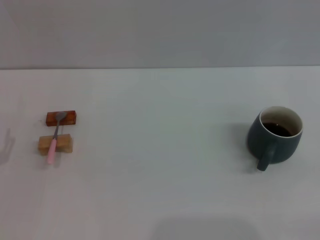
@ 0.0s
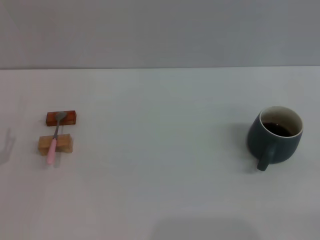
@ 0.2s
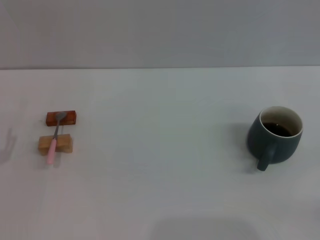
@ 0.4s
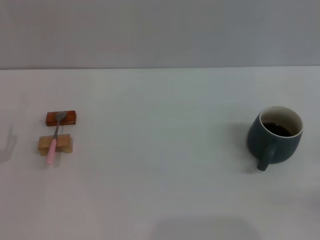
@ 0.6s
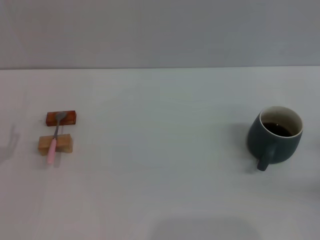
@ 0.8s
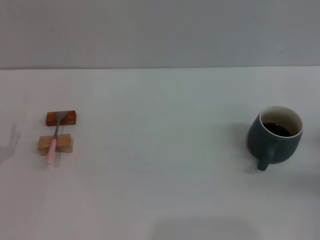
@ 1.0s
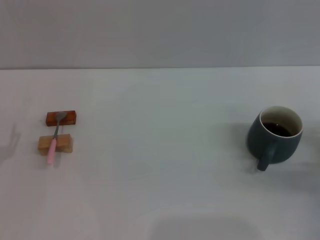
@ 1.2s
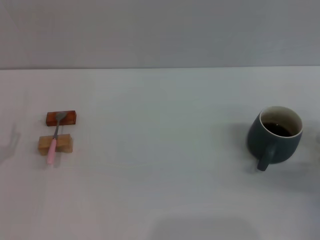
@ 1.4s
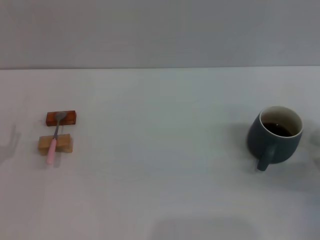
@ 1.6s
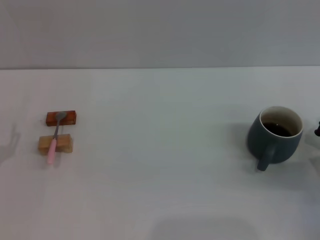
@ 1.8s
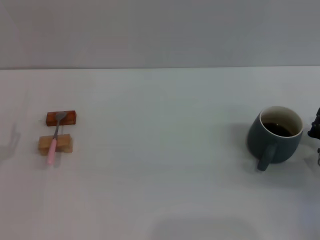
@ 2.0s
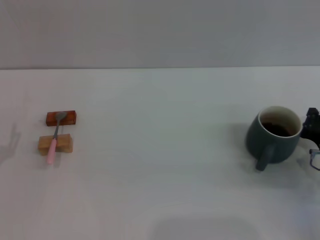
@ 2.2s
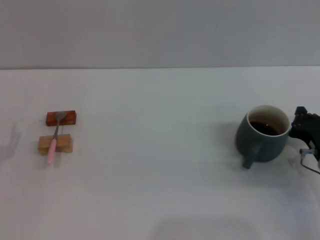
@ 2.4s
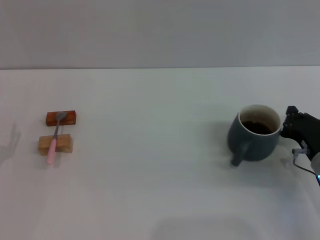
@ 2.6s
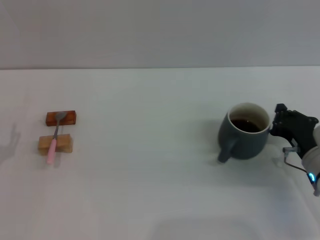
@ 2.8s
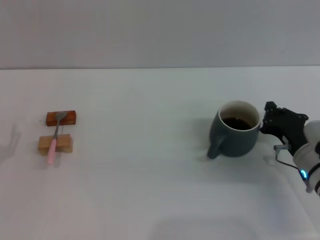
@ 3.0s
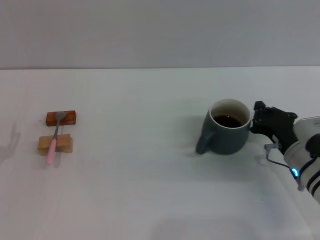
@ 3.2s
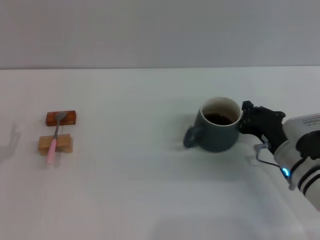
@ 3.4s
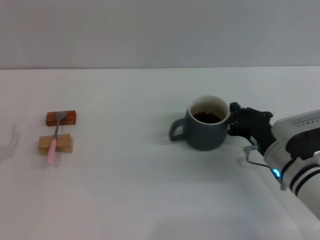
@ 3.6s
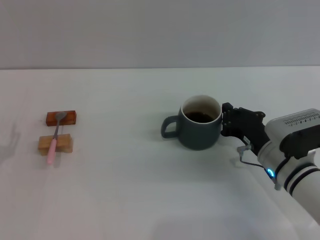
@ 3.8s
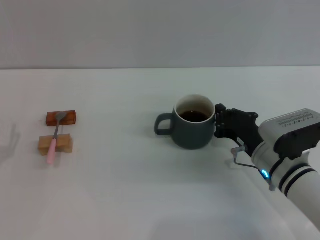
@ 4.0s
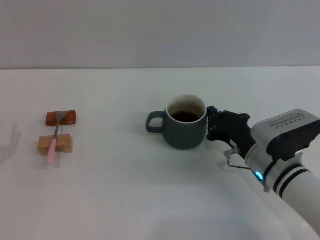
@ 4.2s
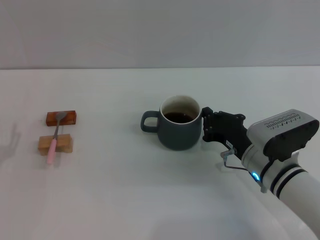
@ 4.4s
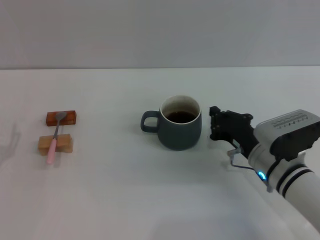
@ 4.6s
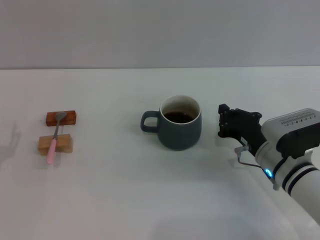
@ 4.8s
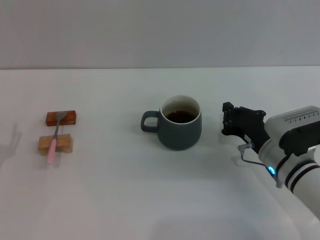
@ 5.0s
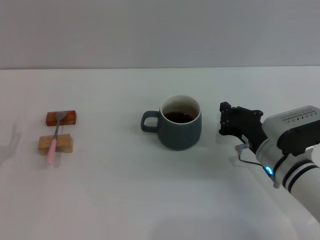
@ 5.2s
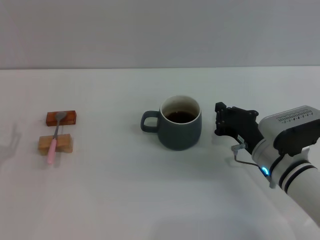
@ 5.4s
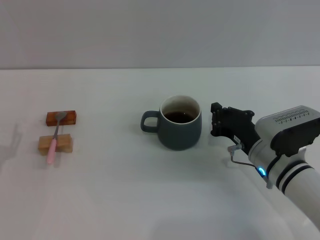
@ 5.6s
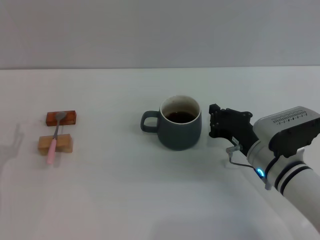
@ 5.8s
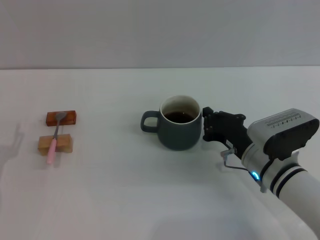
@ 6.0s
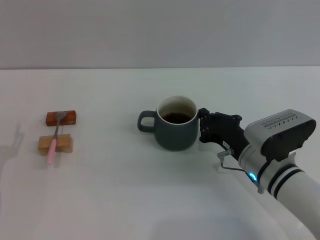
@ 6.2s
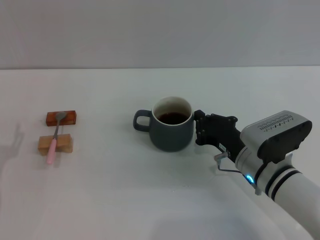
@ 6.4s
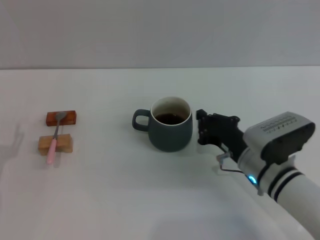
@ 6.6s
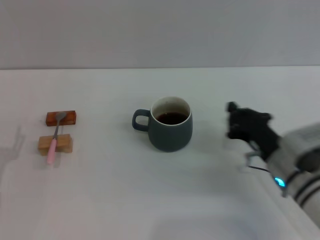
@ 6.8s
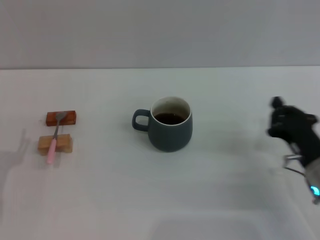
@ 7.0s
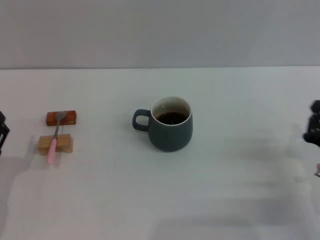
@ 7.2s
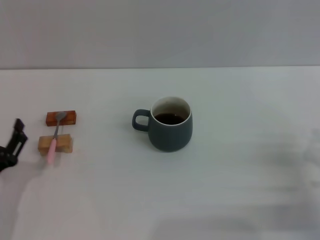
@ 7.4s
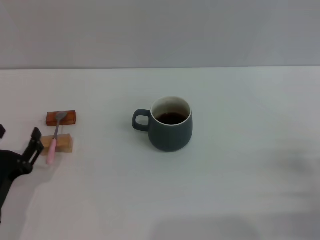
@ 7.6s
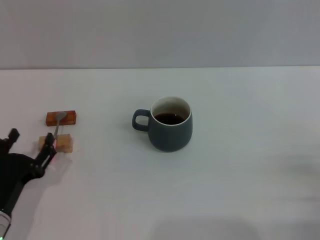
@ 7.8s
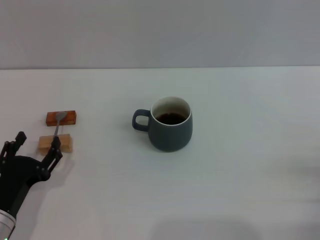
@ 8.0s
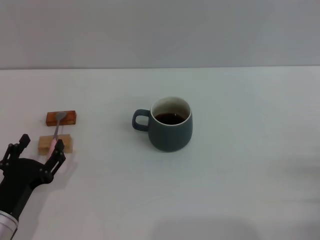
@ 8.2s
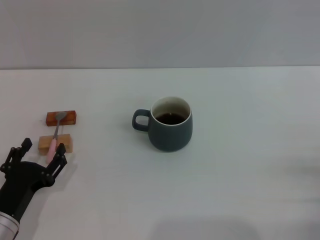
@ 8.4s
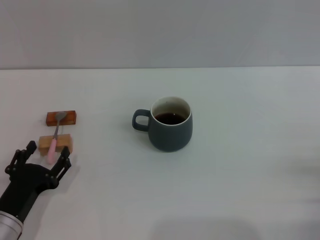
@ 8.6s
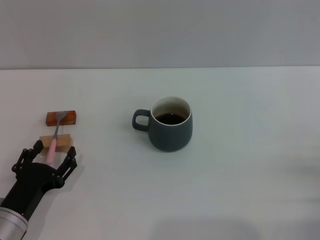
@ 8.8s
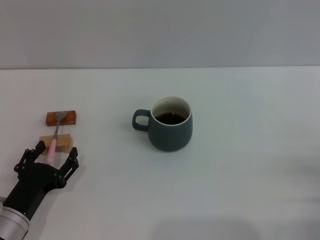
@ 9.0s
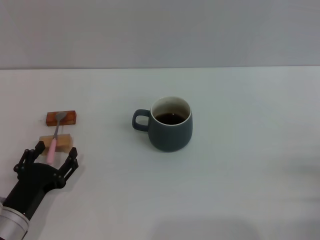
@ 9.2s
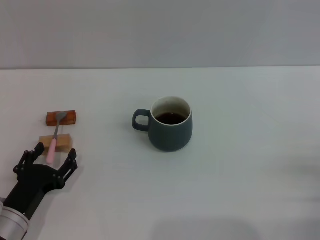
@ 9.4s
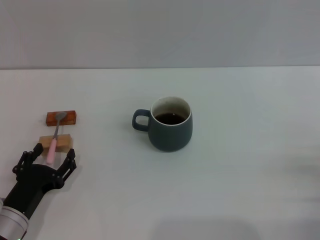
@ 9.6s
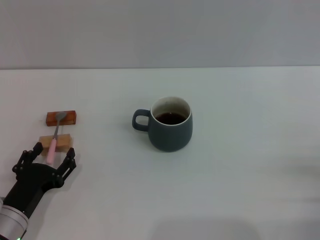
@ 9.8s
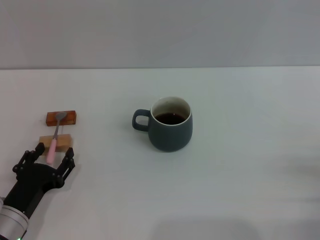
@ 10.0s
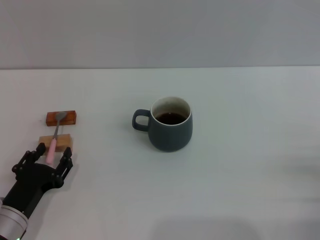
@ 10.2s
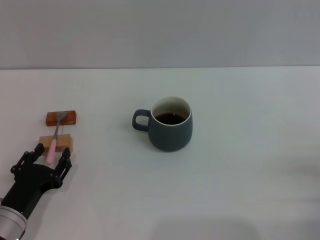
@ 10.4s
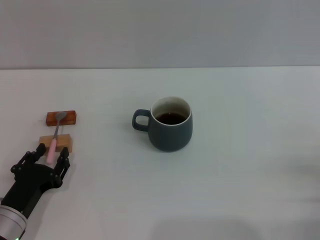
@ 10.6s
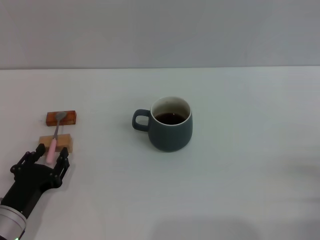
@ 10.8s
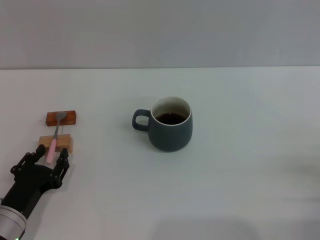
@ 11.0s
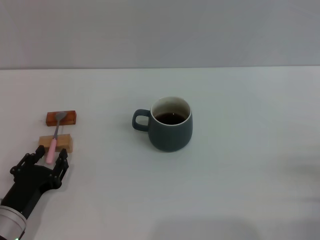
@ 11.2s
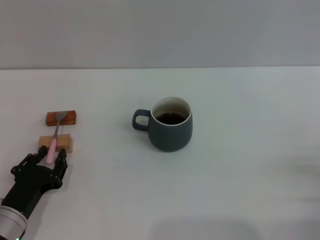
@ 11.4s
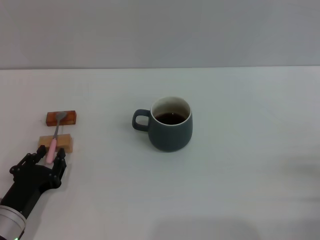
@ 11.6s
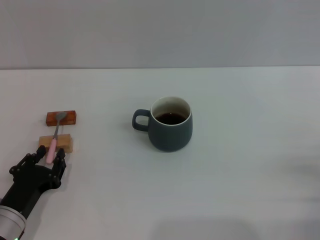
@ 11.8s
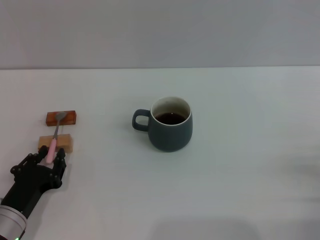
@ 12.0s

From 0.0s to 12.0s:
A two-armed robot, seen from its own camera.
Task of the whole recording: Move the grey cup to the center, lift the pink spoon, stir it three times in the cup, and put the spoon into the cup.
Step, from 0.0s to 6.6s: Move the cup with coffee to the center of view with the right gripper.
From 0.0s to 1.6s: The right gripper travels forward and to the left by some 10 cm.
From 1.6s to 3.0s: The right gripper heads to the left, covering roughly 5 cm.
From 3.0s to 4.4s: The right gripper travels to the left by about 5 cm.
From 6.0s to 7.6s: The right gripper heads to the right and backward, covering roughly 15 cm. Meanwhile the left gripper ends up approximately 5 cm from where it was.
From 7.6s to 9.0s: There are only small adjustments of the grippers.
From 9.0s to 10.4s: The two grippers keep their place.
From 10.4s to 12.0s: The left gripper closes its fingers.

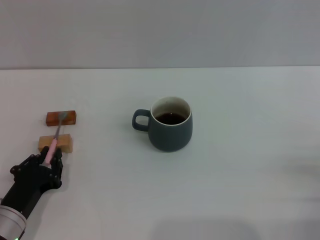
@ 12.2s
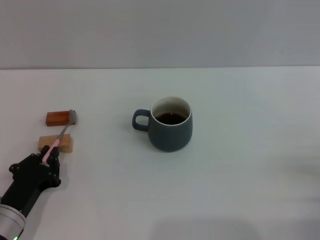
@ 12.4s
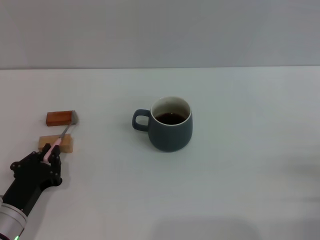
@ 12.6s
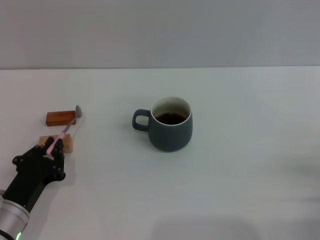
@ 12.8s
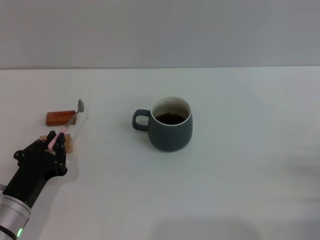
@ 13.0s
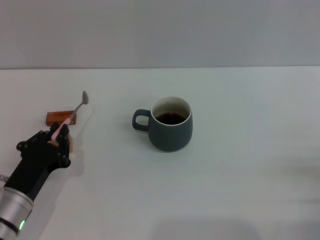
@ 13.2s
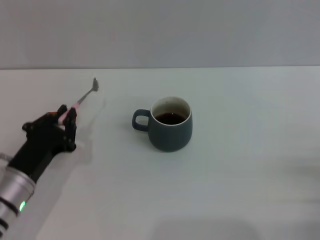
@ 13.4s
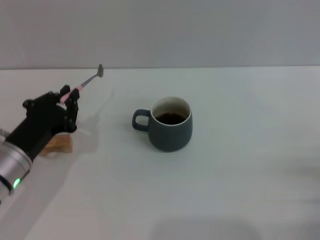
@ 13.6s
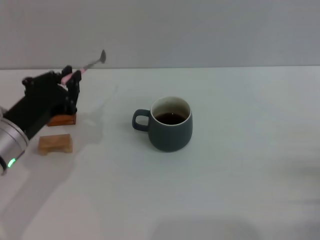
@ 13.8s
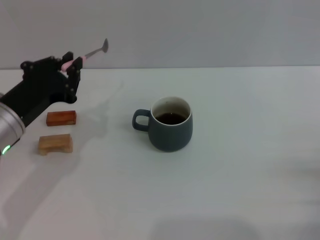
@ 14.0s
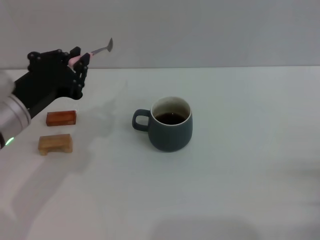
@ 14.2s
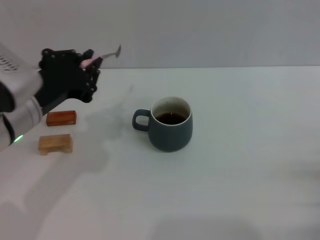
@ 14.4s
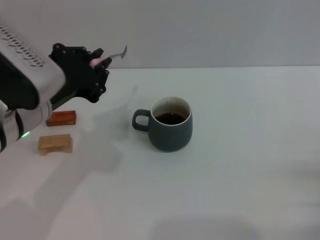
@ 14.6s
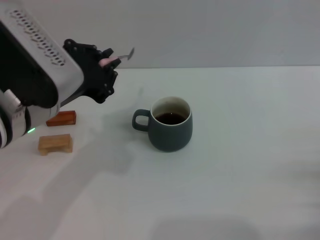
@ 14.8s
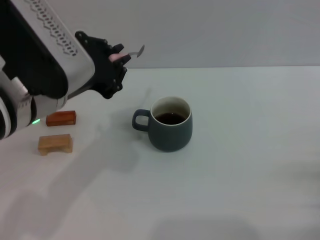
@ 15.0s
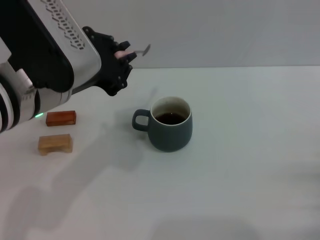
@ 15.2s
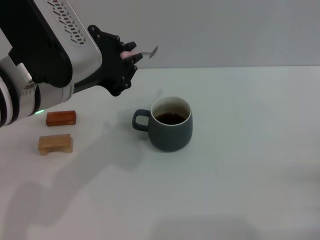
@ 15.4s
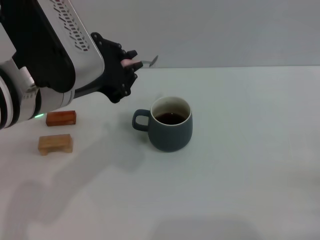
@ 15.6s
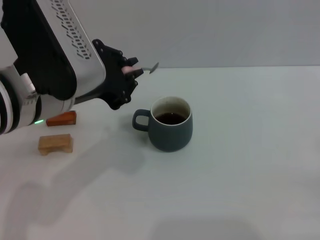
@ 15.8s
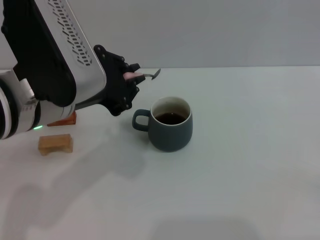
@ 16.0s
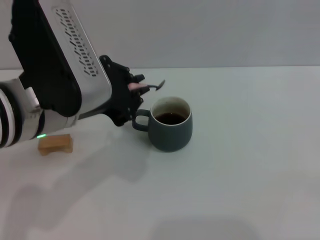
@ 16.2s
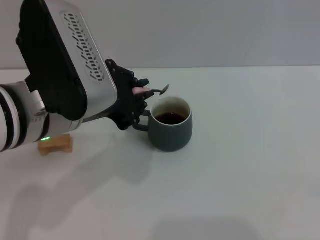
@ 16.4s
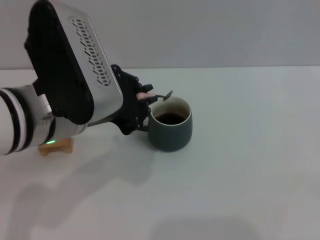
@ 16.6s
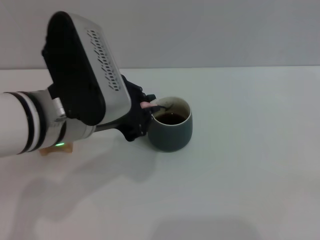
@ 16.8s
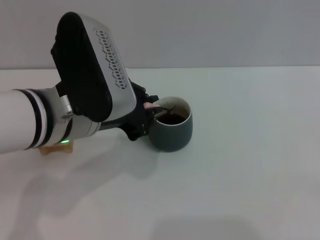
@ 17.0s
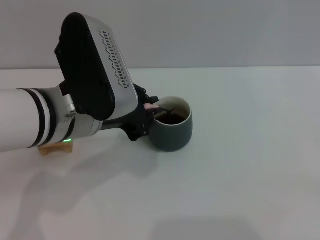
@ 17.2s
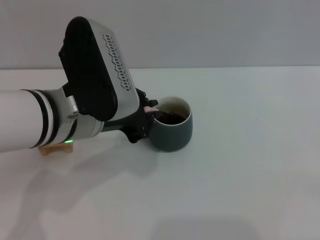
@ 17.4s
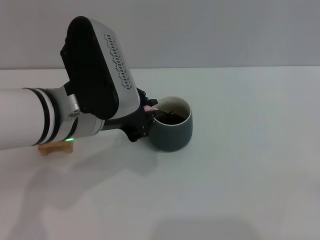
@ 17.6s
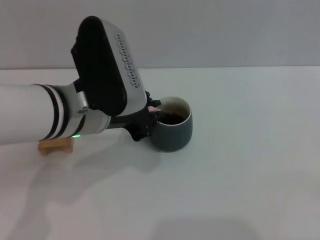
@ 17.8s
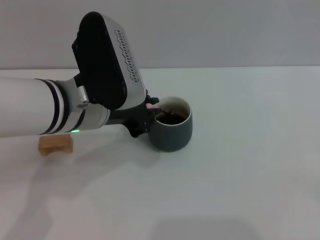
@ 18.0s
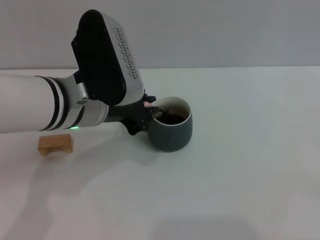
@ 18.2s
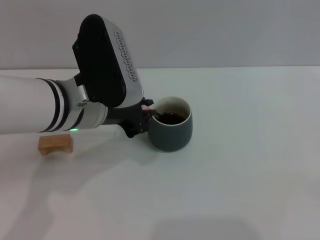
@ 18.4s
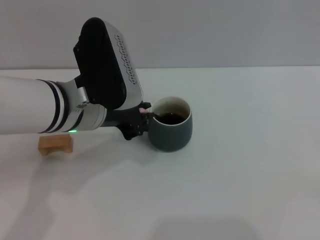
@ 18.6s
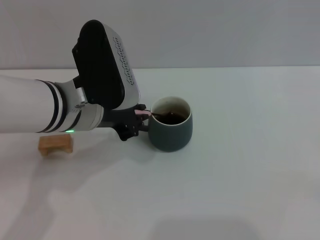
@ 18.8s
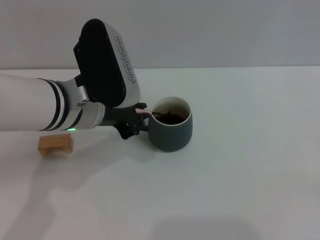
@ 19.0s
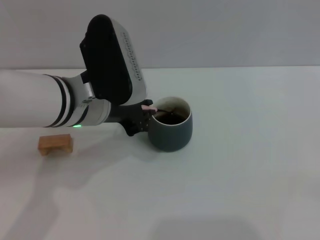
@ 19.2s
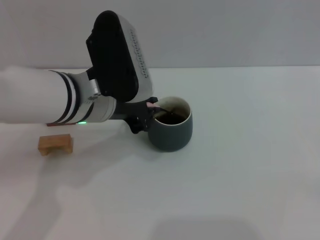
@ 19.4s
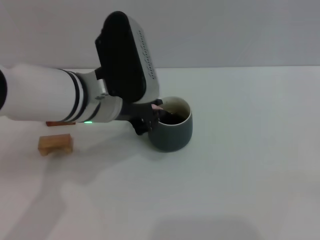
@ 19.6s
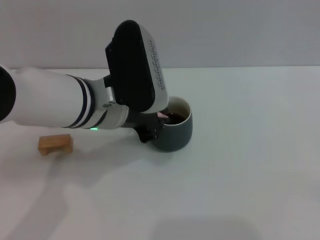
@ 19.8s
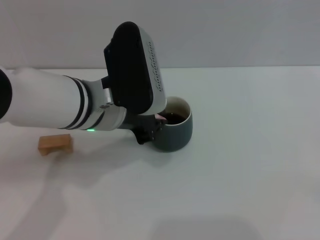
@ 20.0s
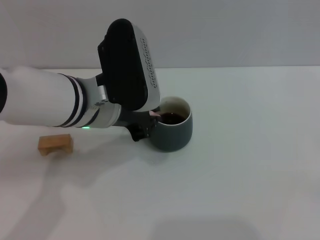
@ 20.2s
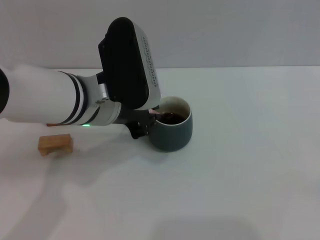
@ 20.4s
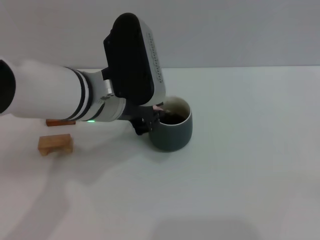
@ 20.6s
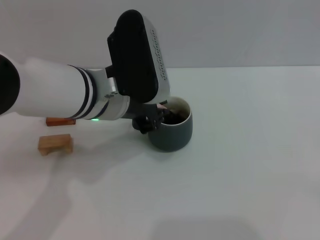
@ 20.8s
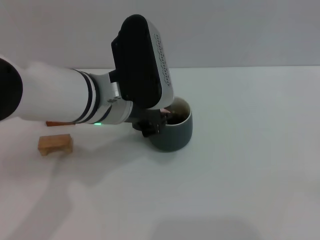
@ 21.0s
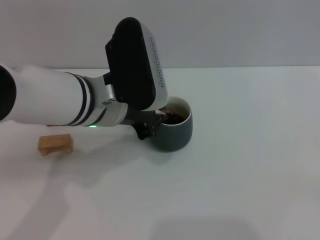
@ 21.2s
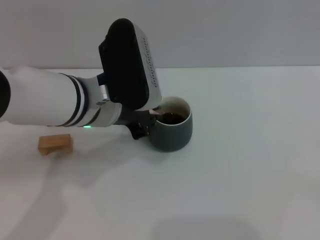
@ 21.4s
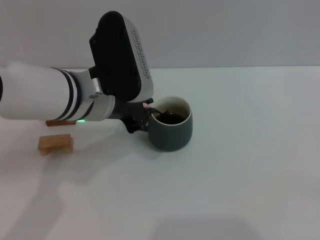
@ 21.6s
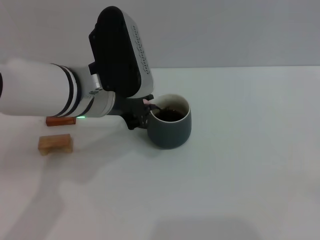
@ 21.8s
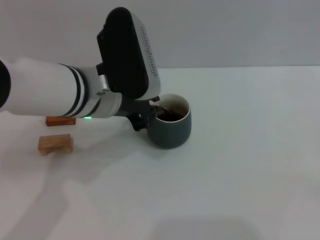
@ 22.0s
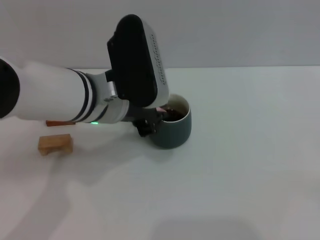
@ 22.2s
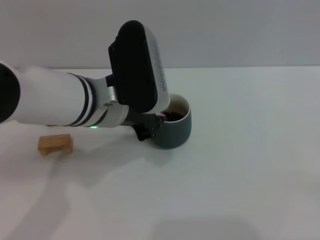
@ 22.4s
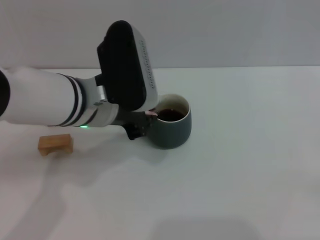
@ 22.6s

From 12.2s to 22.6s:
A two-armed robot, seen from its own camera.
Task of the whole recording: Move the grey cup to the center, lift the pink spoon, stir it three times in the cup, and put the spoon into the cup.
From 12.2s to 13.6s: The left gripper is displaced upward and forward by some 10 cm.
From 13.6s to 15.2s: The left gripper travels upward and to the right by about 20 cm.
From 15.2s to 16.6s: The right gripper changes place by roughly 5 cm.
From 16.6s to 18.2s: The left gripper ends up approximately 5 cm from where it was.
From 18.2s to 19.6s: The grippers make only small movements.
From 19.6s to 21.2s: The two grippers keep their place.
From 21.2s to 22.6s: The grippers move only a little.
